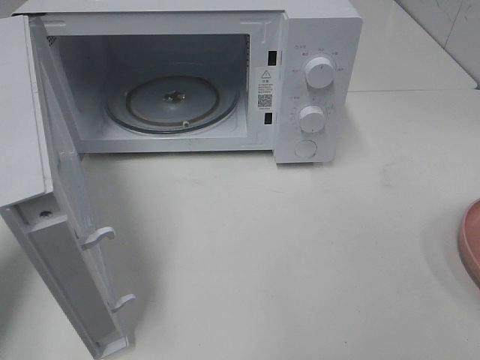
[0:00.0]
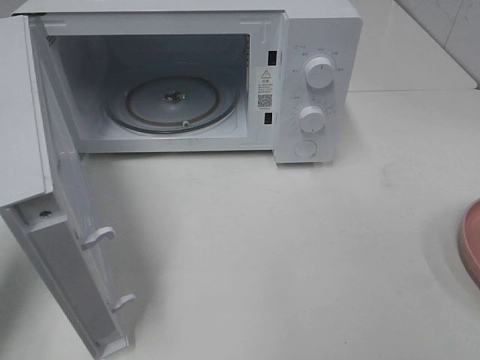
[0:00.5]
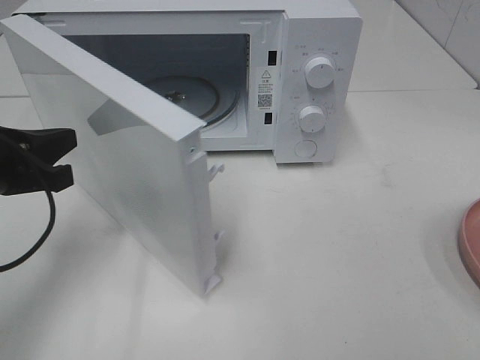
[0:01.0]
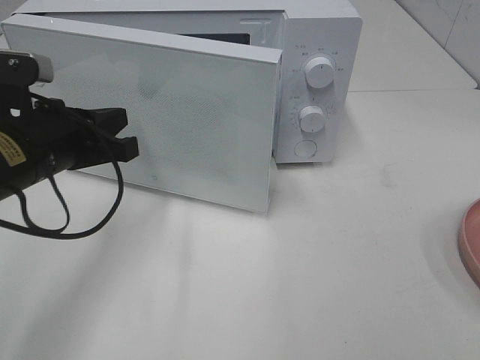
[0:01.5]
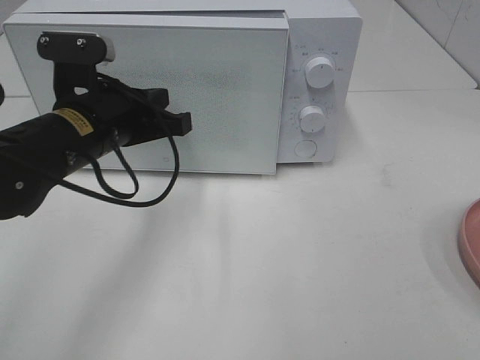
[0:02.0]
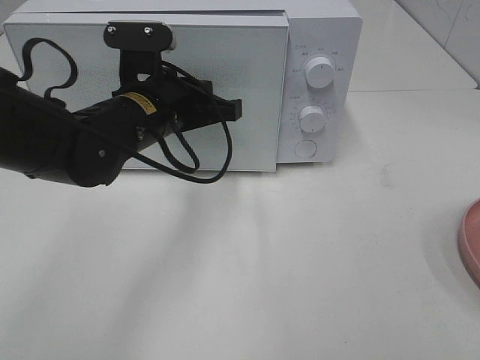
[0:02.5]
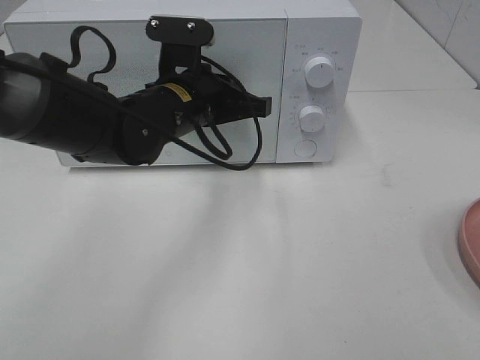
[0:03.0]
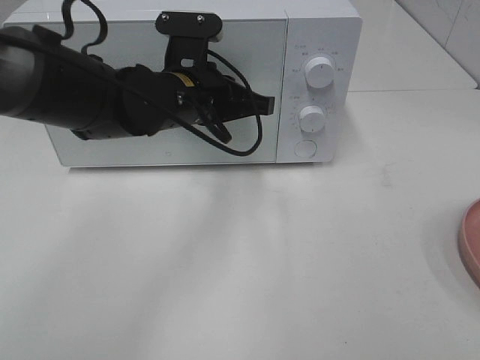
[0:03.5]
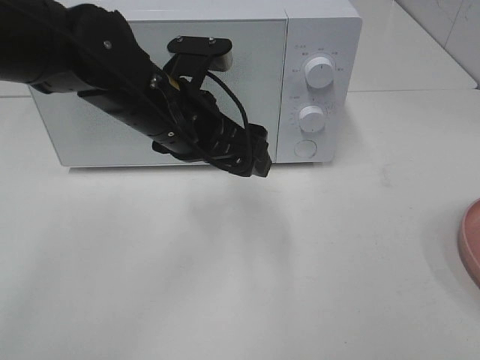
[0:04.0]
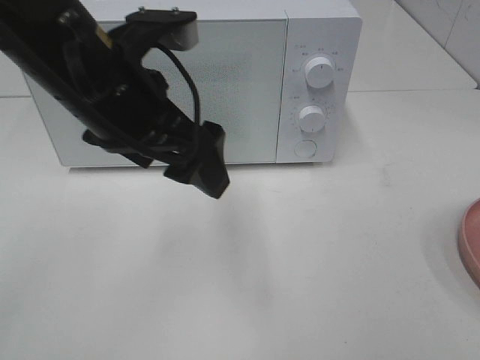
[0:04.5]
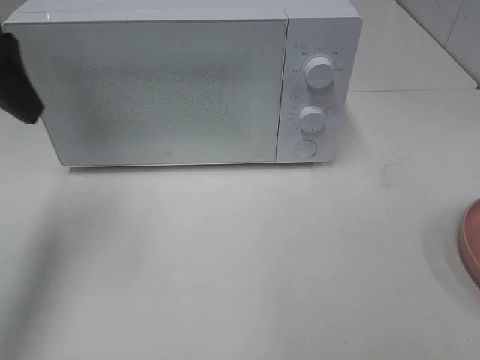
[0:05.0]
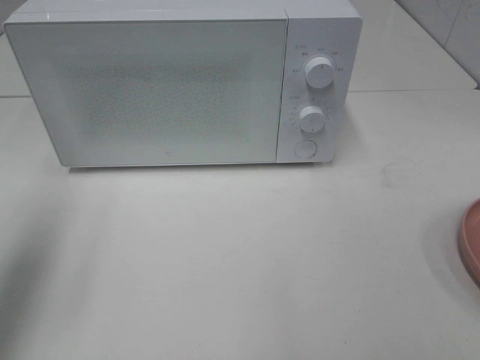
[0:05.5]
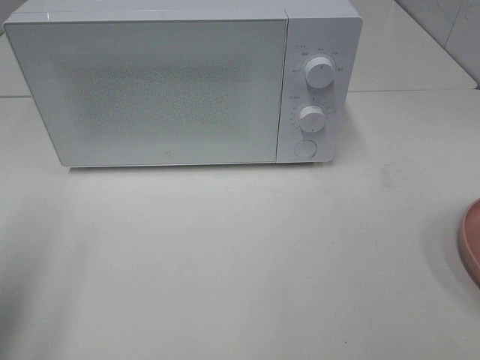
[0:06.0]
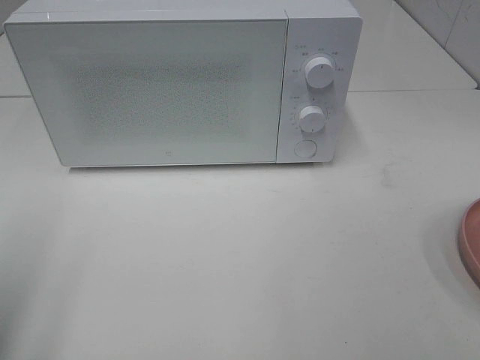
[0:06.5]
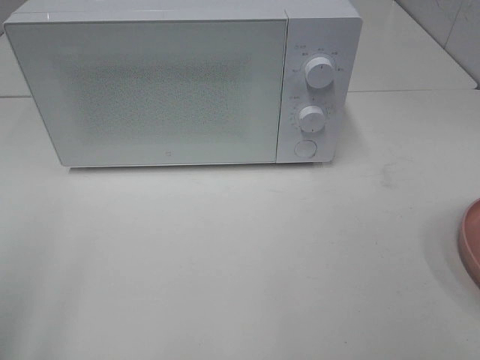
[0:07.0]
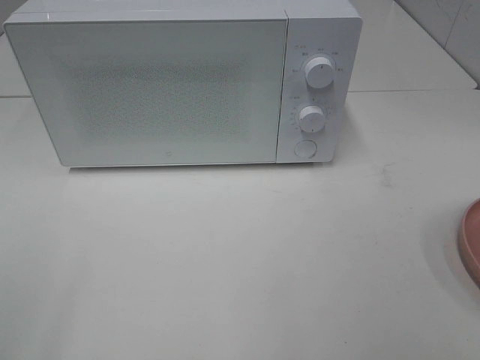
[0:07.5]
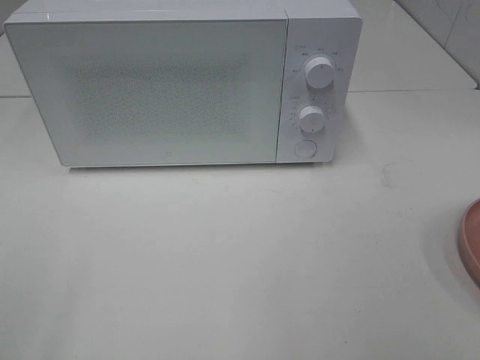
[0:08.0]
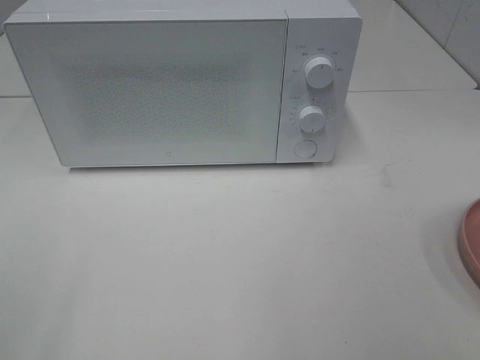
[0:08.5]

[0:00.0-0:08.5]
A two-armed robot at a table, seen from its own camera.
Task of the whole recording: Heat the burger.
Step, 0:00.0 to 0:03.5: Left hand: close the microwave door.
0:00.0 to 0:02.0: The left gripper travels to the right and forward by about 20 cm.
0:02.0 to 0:04.0: The left gripper heads to the right, covering roughly 10 cm, and opens.
0:04.0 to 0:06.5: The left gripper heads to the left and backward, covering about 30 cm.

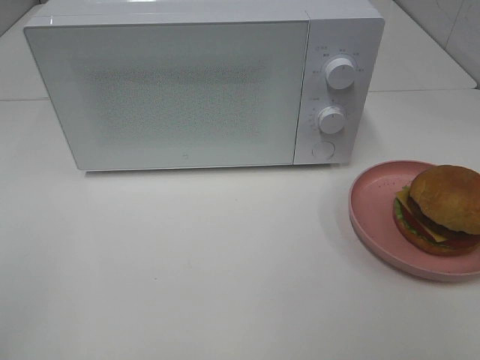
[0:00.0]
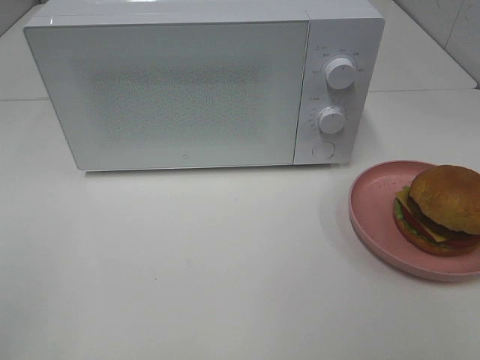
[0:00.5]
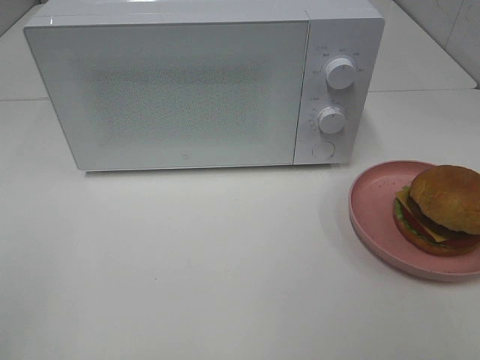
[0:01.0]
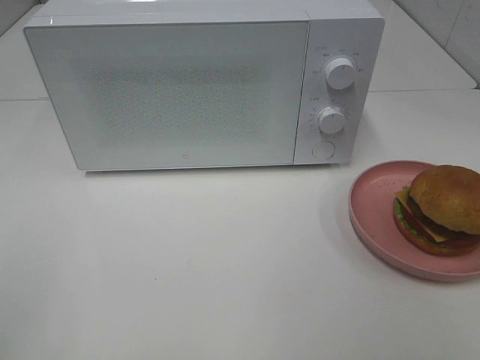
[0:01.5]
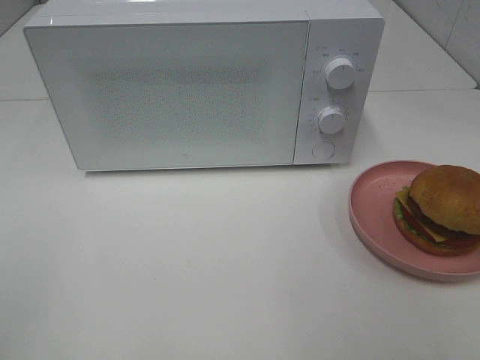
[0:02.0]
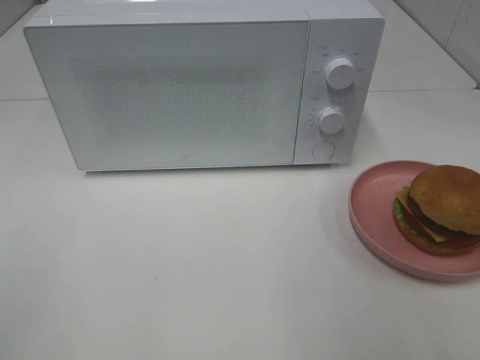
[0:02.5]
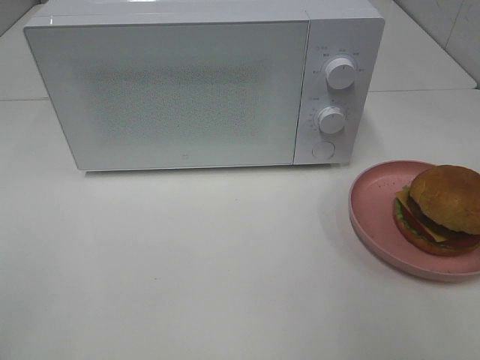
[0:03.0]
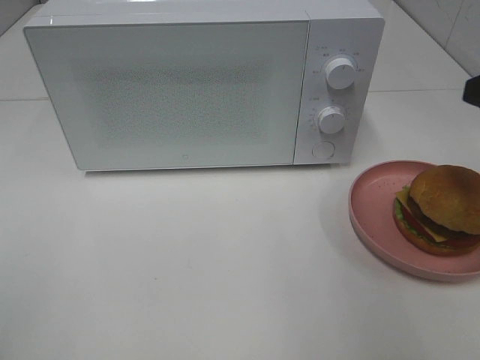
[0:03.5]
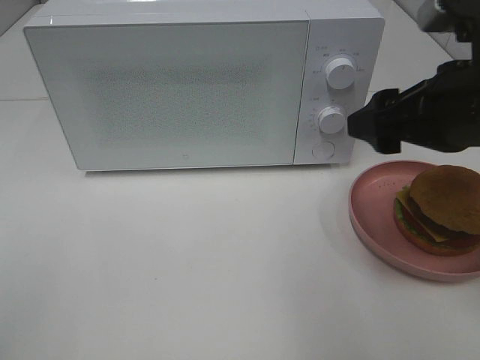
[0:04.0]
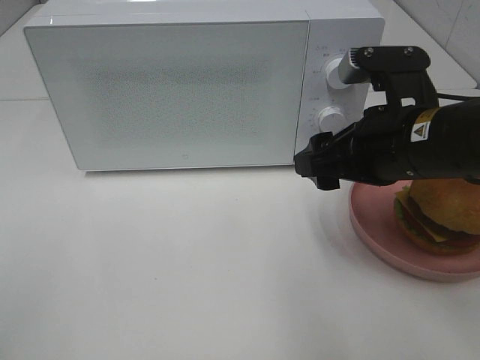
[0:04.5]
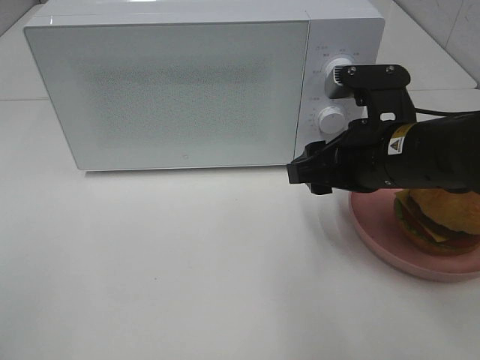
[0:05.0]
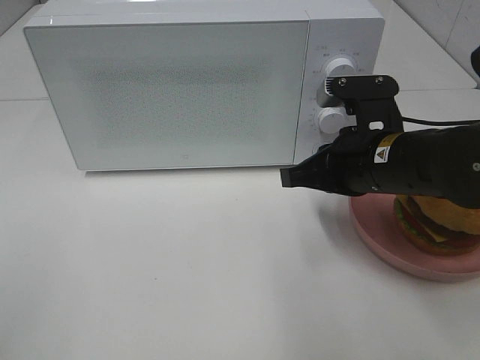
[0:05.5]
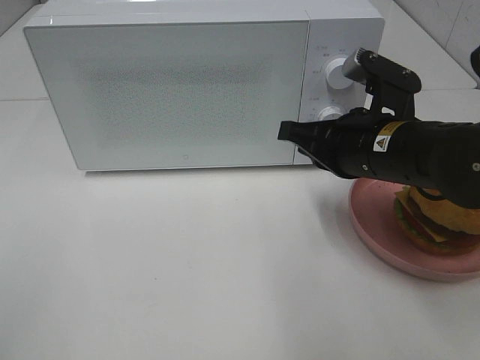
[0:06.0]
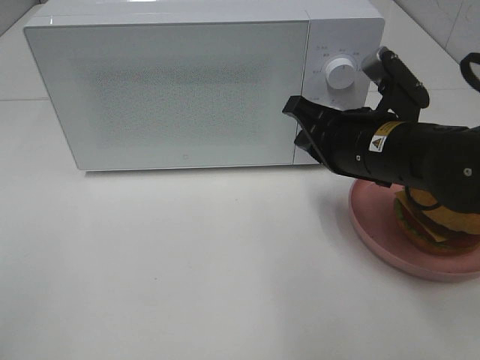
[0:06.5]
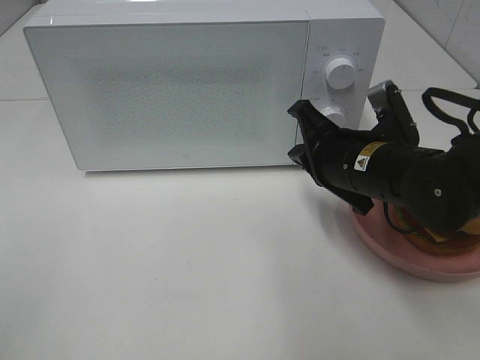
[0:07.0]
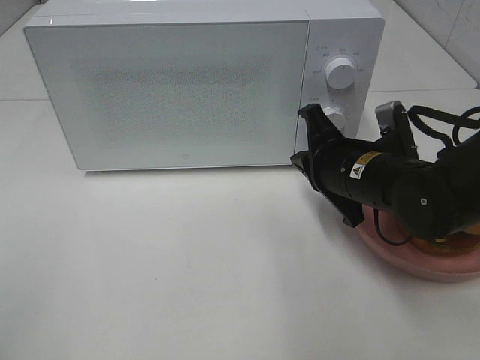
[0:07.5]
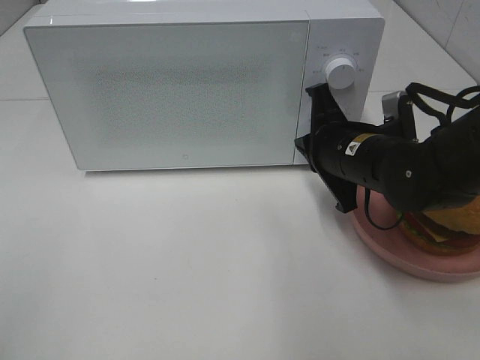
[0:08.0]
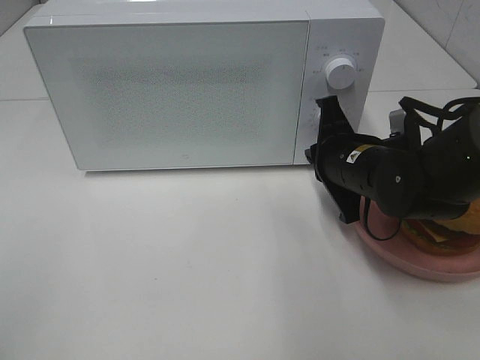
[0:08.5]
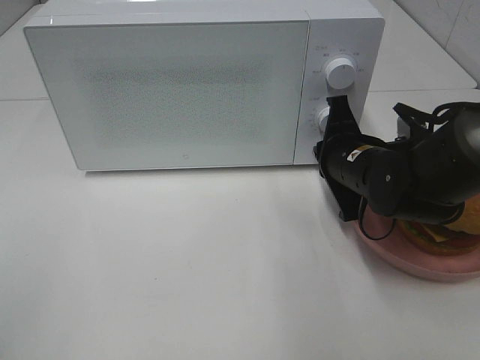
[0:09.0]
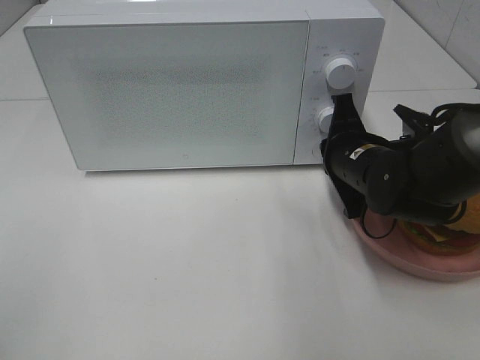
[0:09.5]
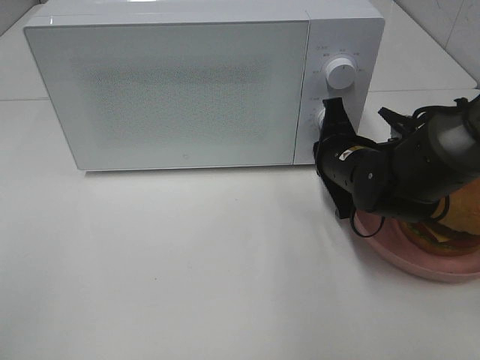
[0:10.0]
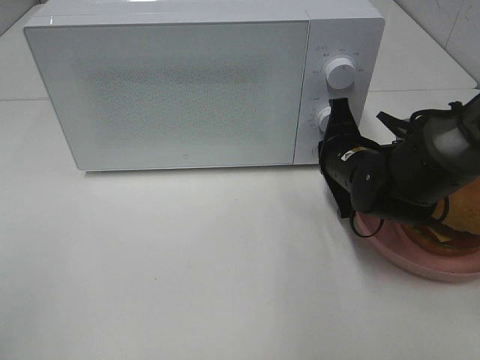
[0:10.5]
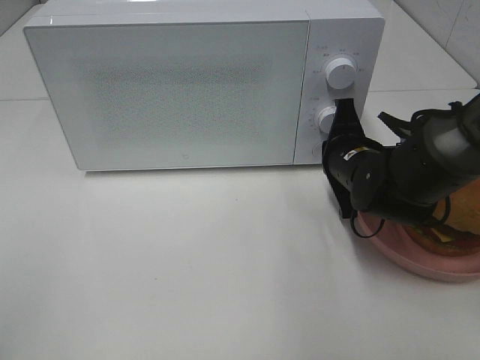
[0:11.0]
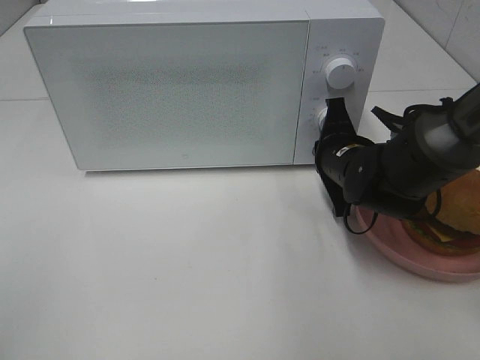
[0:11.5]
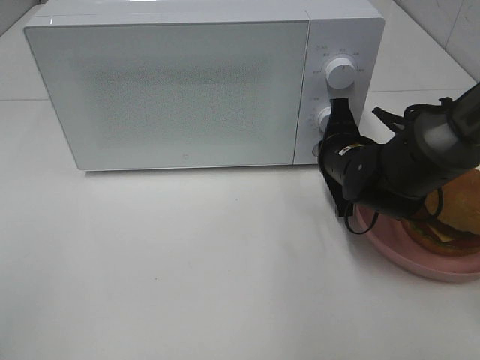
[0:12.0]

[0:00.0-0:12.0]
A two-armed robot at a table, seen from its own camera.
Task of the whole recording: Heat the burger.
0:02.0 to 0:04.0: The right gripper is displaced forward by approximately 25 cm.
0:04.0 to 0:06.0: The right gripper heads downward, covering some 5 cm, and closes up.
0:06.0 to 0:08.0: The right gripper shifts by roughly 5 cm.
0:08.0 to 0:10.0: The grippers make only small movements.
0:10.0 to 0:12.0: There are only small adjustments of the grippers.

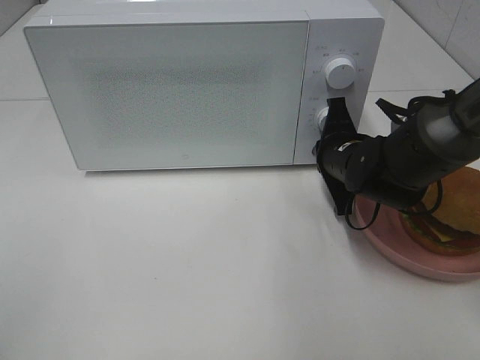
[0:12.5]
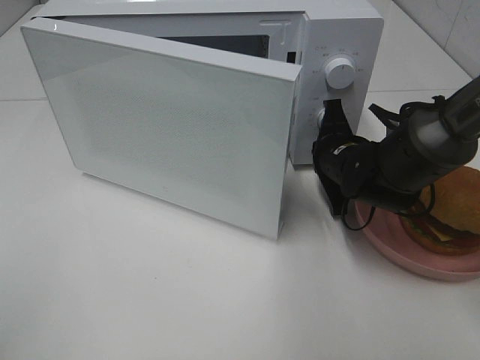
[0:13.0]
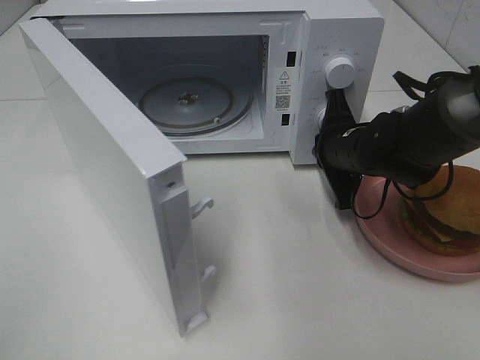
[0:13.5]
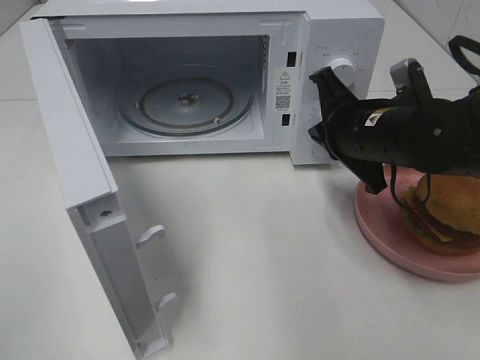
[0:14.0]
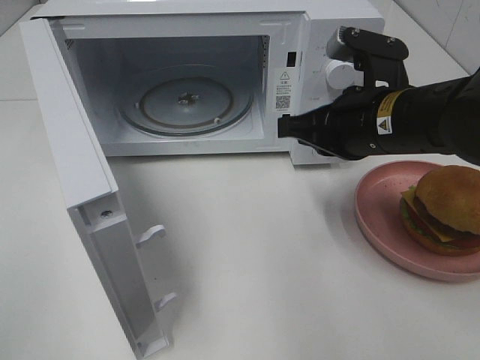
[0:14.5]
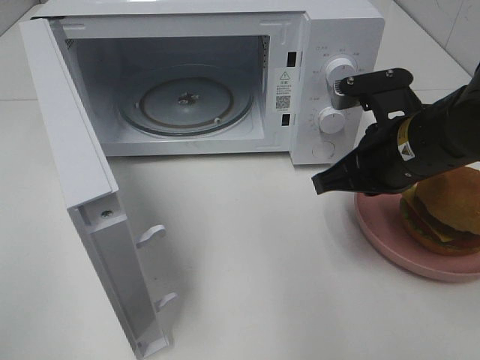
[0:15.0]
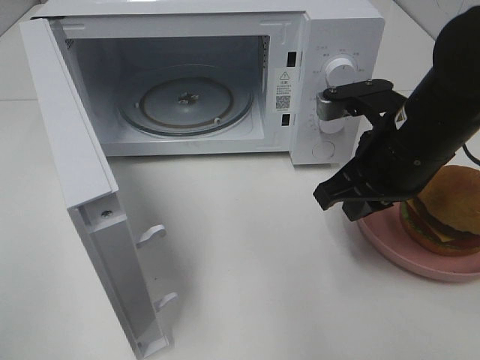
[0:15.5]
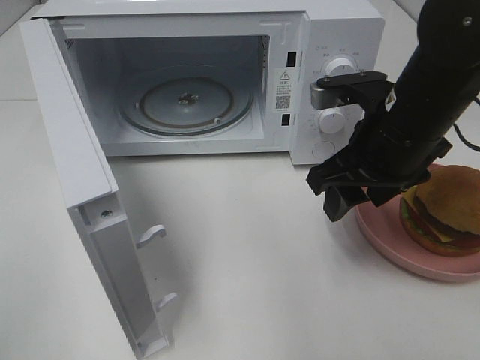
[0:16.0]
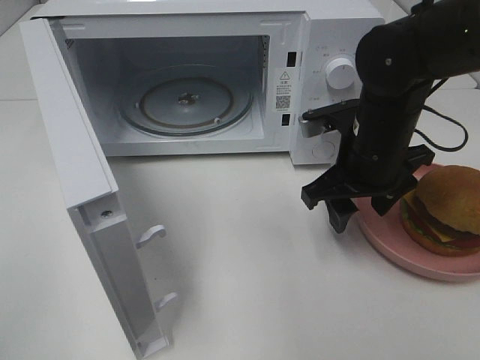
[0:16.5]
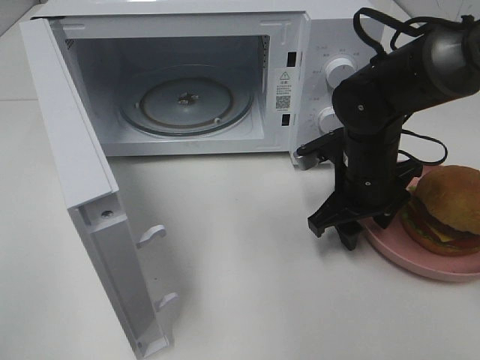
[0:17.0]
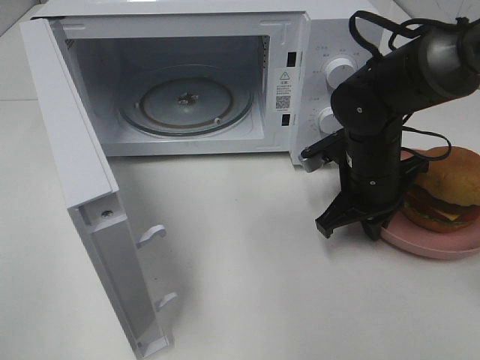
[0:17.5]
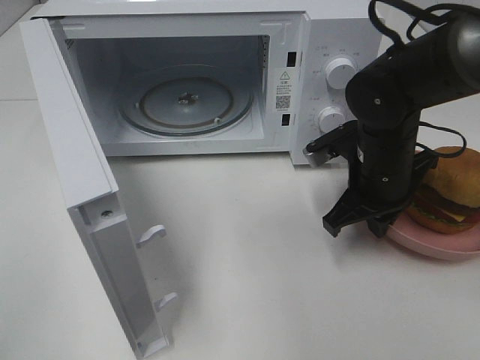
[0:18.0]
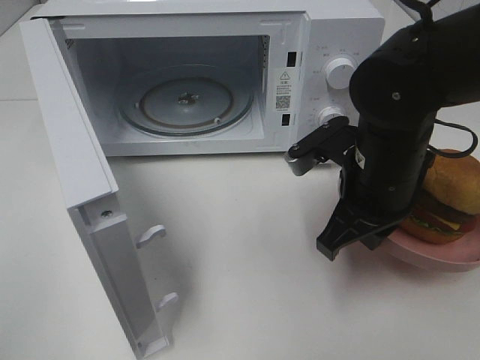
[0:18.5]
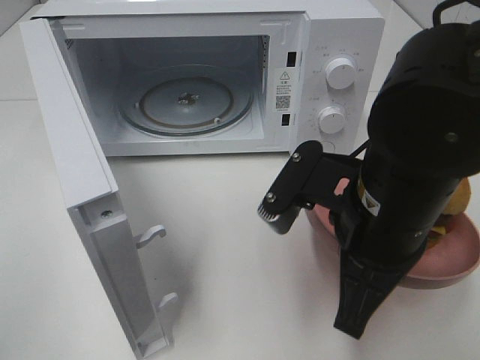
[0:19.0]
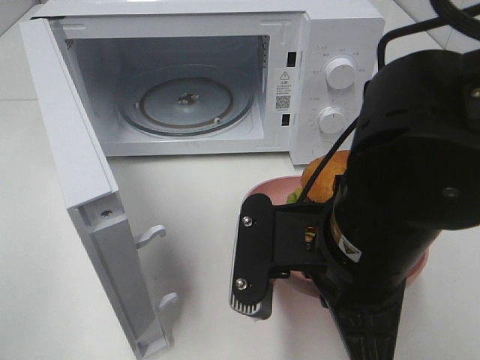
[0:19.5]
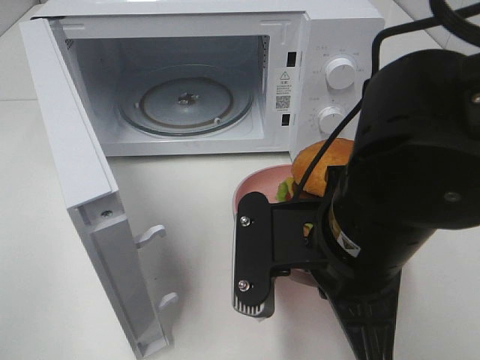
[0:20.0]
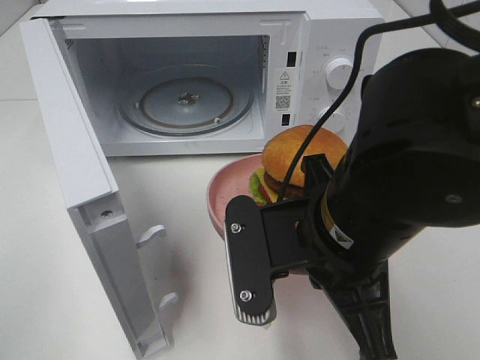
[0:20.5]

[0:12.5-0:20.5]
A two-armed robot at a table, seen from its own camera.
Task of the whole recording: Heat the burger.
Step, 0:14.0 to 0:17.5: Right hand: grab the plate with the hamburger.
0:12.5 to 0:14.5: The right gripper shifts roughly 10 cm upward and backward.
0:14.5 to 0:16.5: The right gripper shifts by some 5 cm, and opens its fingers.
0:16.5 to 0:18.5: The right gripper heads backward, covering about 5 cm, and closes.
0:18.5 to 0:20.5: The right gripper travels backward and to the left by approximately 10 cm.
